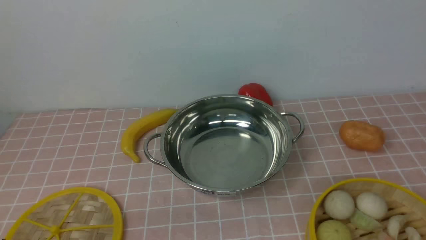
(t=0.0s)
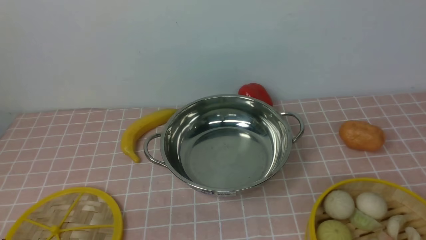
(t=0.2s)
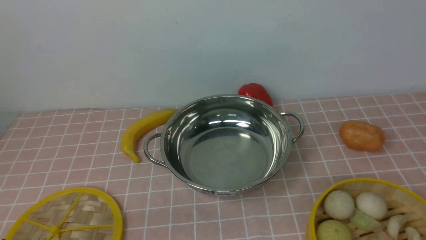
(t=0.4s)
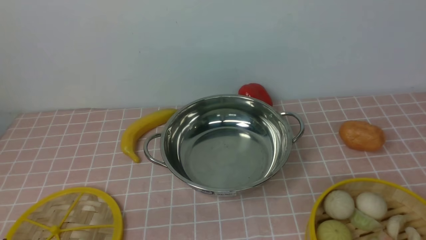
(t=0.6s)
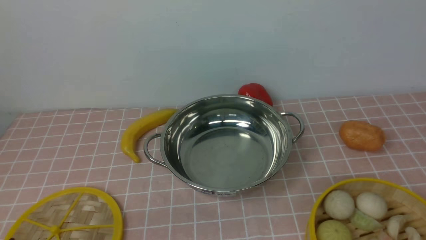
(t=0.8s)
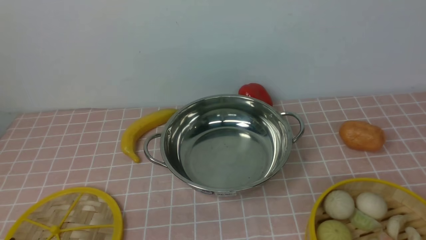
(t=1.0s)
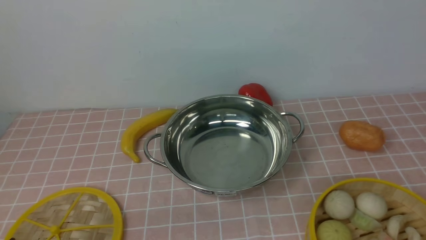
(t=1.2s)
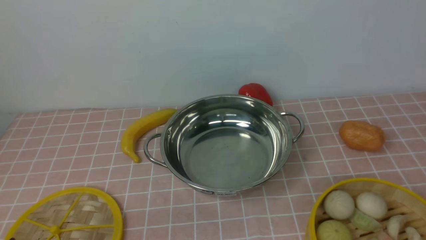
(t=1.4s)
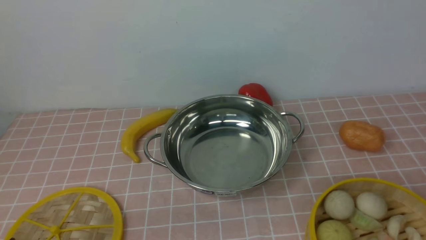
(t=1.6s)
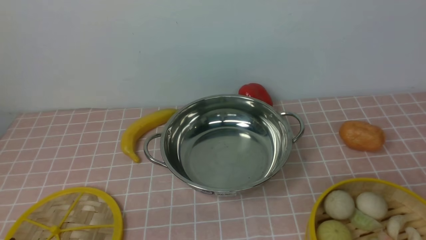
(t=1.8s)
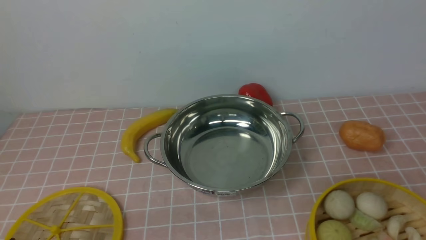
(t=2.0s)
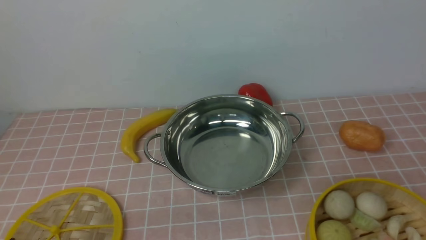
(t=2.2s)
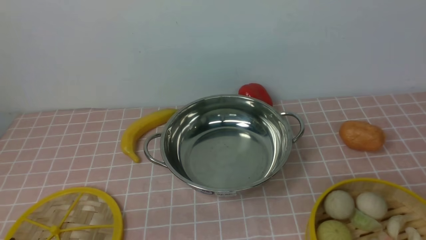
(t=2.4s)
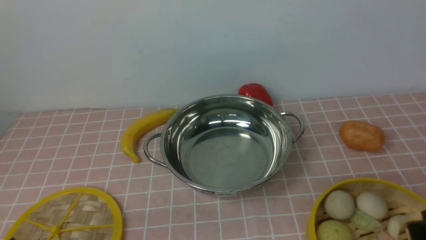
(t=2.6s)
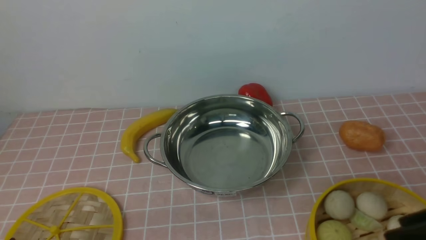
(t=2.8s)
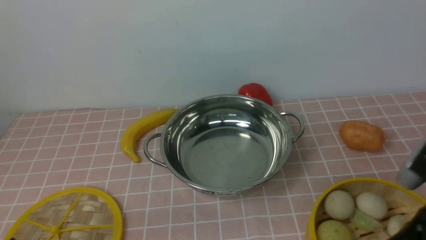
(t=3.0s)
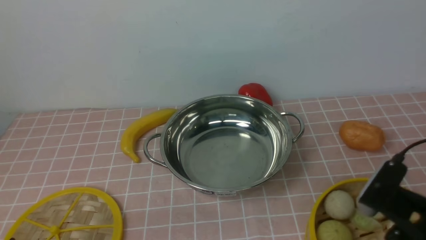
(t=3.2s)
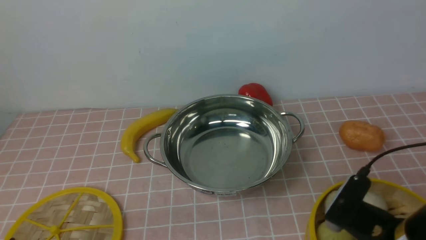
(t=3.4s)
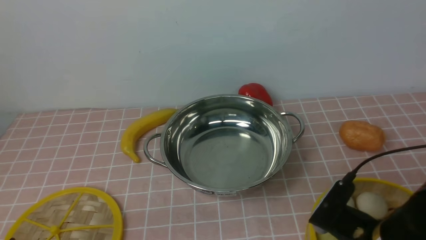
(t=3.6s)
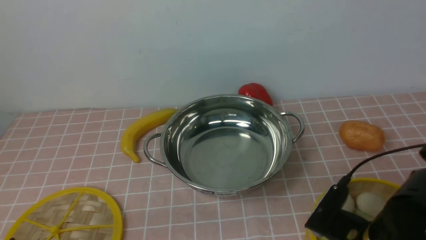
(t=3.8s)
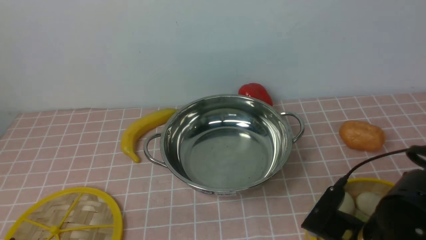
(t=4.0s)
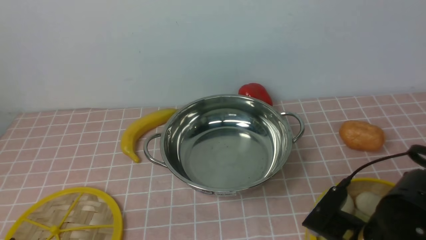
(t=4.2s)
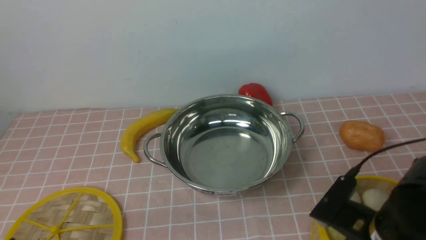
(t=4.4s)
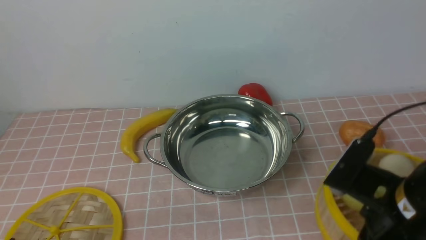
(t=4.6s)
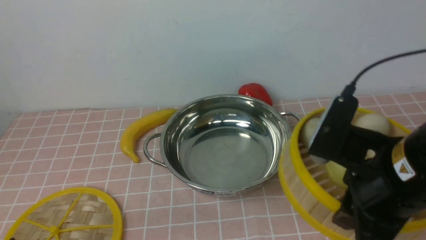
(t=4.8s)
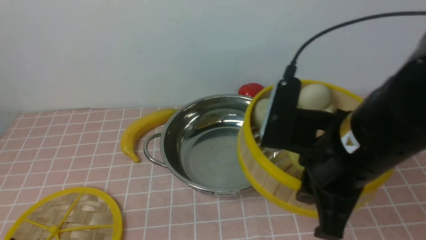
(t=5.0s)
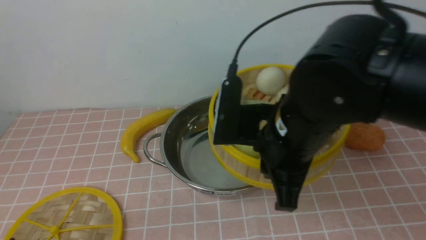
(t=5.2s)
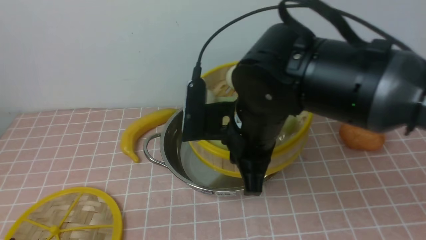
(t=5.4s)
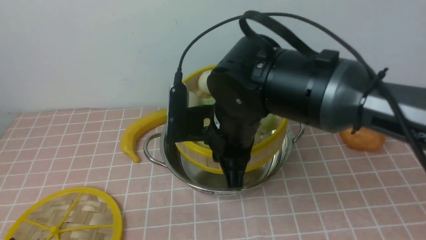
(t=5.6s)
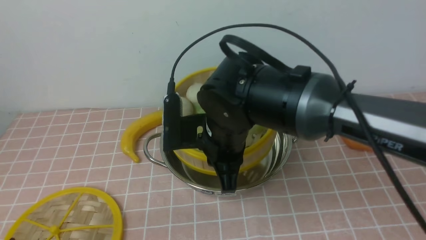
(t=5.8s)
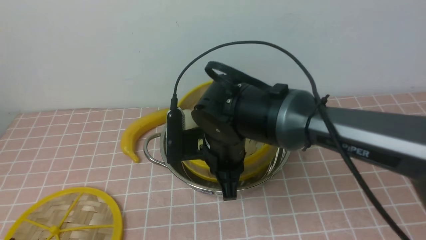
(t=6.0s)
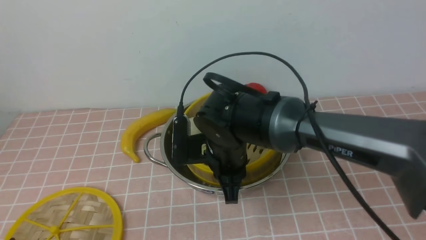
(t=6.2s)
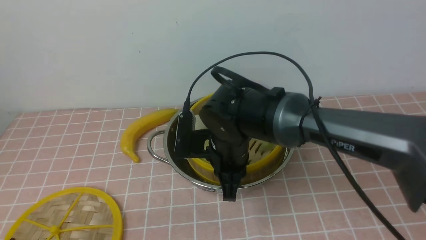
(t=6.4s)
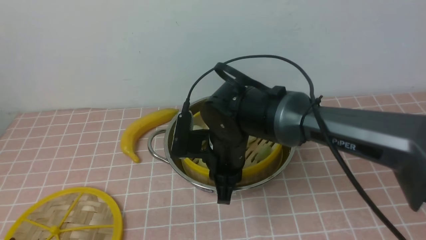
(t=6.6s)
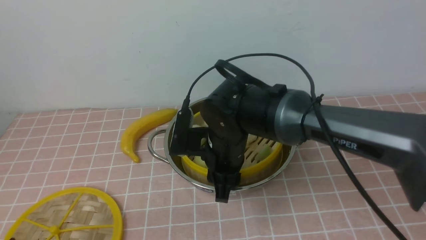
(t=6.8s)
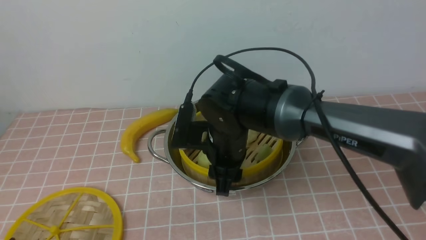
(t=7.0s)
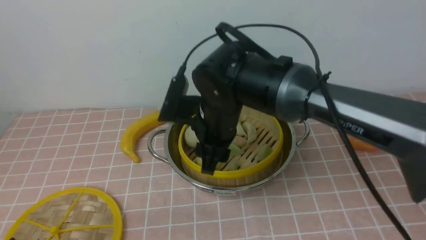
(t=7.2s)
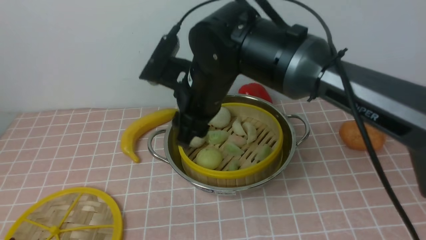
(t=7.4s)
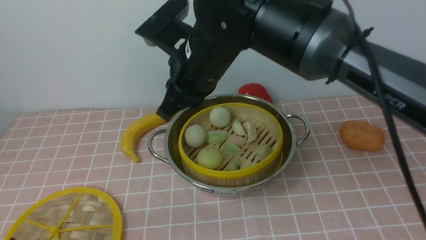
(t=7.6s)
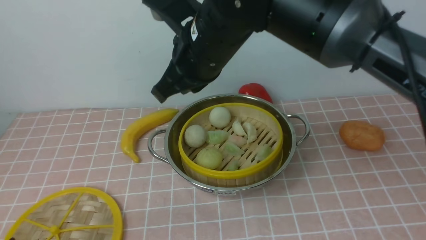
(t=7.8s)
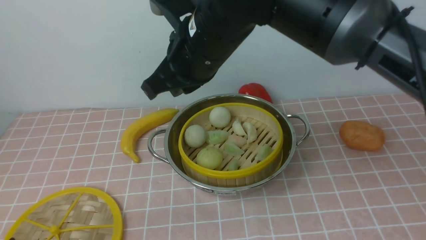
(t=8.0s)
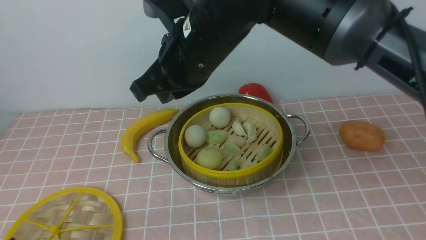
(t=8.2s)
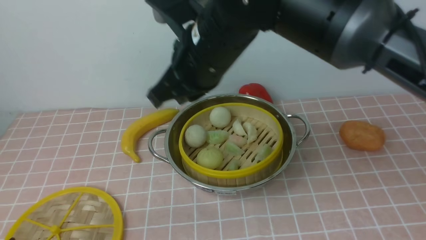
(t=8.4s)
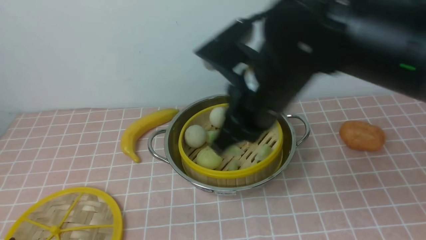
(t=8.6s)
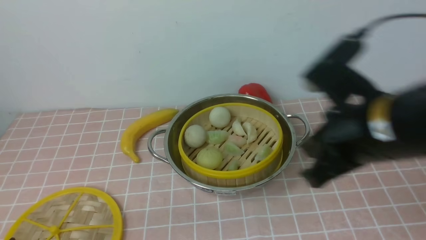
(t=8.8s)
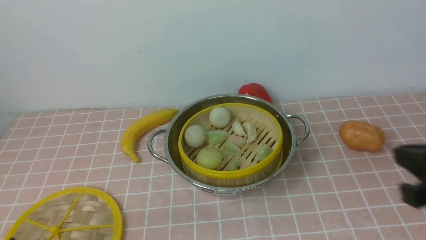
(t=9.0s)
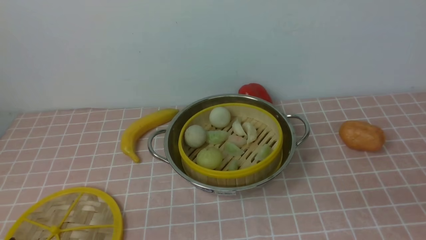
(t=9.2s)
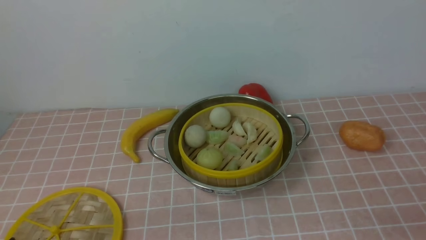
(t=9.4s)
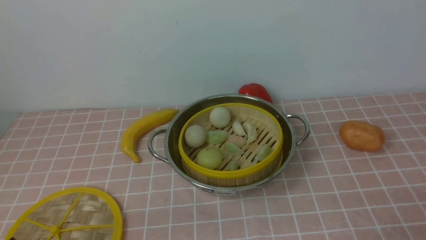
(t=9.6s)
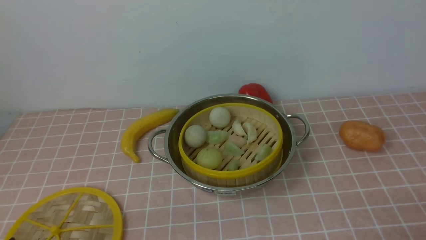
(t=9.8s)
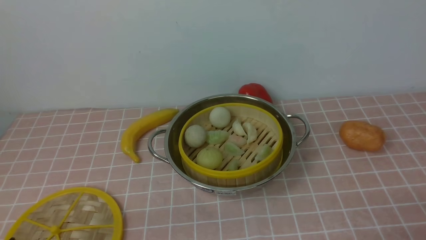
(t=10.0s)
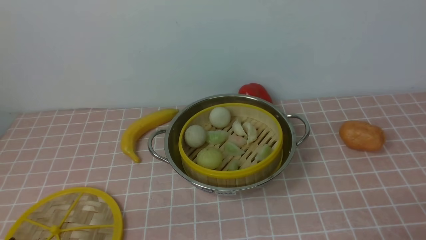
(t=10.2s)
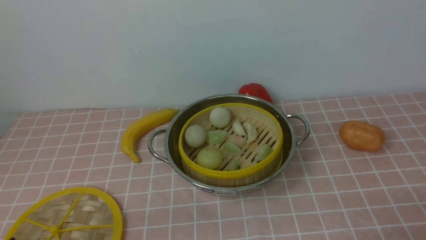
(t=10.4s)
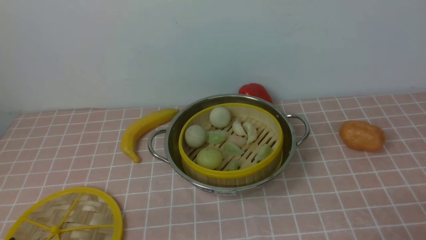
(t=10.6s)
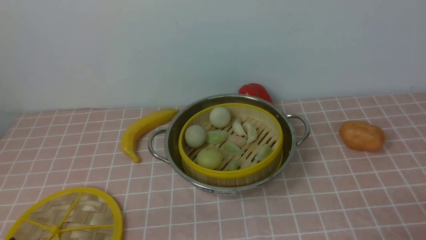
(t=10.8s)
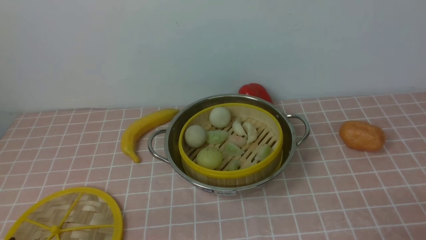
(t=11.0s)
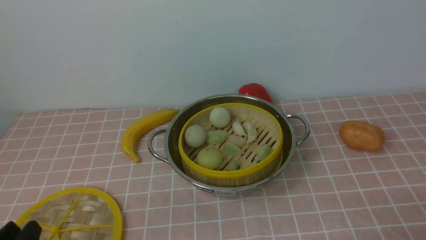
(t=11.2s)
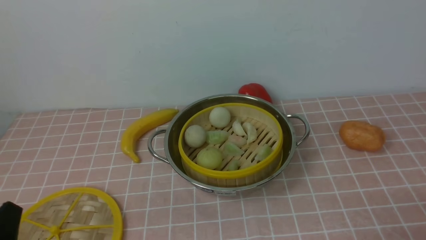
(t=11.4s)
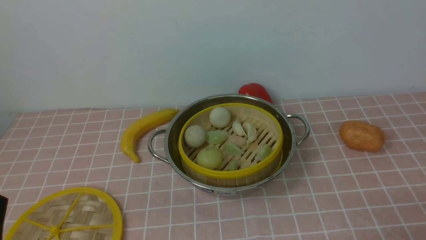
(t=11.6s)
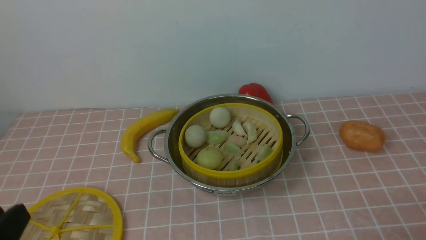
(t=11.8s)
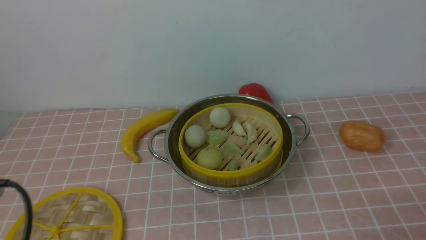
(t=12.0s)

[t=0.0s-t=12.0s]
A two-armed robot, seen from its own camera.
Task of the whole recording: place the steamer in the pot on the pink tablecloth, and put the lid on the steamer.
Step, t=0.0s to t=4.4s: use the right arm to lift the steamer closest to it.
Step, t=4.6s to t=7.0s: use the right arm to put the steamer into the iron steamer pot in the middle.
t=1.6s to t=3.0s: The right gripper travels forward, to the left and upward by some 10 cm.
t=3.0s to t=4.4s: The right gripper shifts roughly 10 cm downward and to the left, and closes its fingers.
t=4.4s to t=6.0s: The right gripper heads to the left and forward, covering about 20 cm.
t=6.0s to t=7.6s: The right gripper travels upward by some 10 cm, and opens, then closes once more.
t=7.6s to t=9.0s: The right gripper goes some 30 cm to the right and backward, and closes its fingers.
t=9.0s to t=10.4s: The right gripper shifts approximately 20 cm downward, backward and to the right, and opens.
t=10.4s to t=12.0s: The left gripper moves upward, roughly 10 cm.

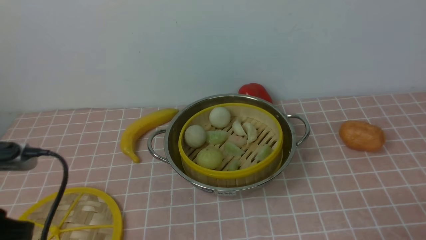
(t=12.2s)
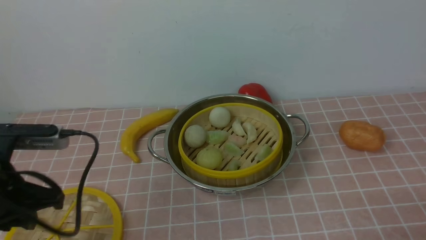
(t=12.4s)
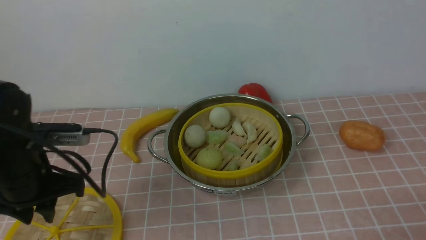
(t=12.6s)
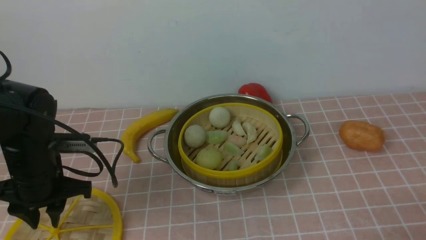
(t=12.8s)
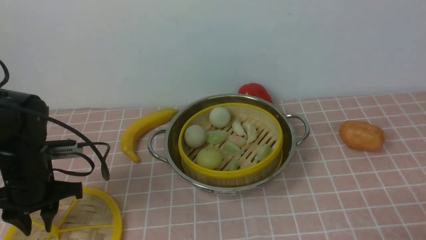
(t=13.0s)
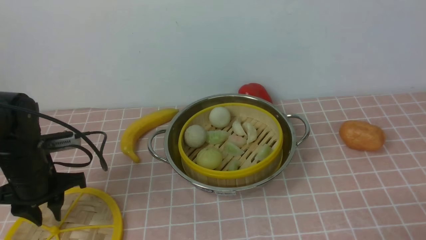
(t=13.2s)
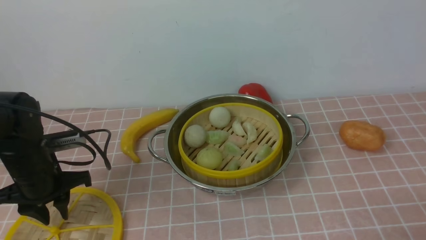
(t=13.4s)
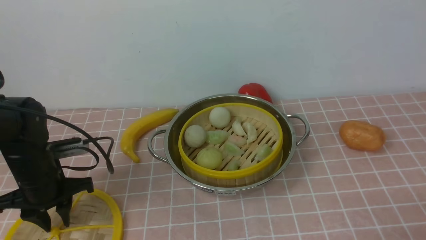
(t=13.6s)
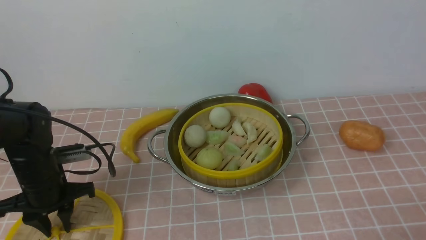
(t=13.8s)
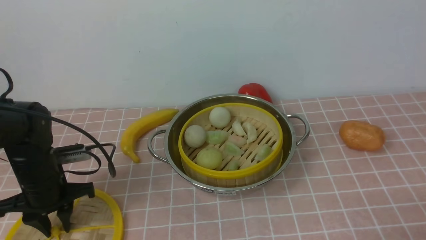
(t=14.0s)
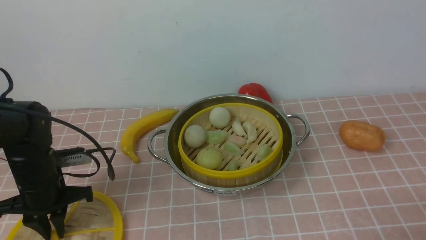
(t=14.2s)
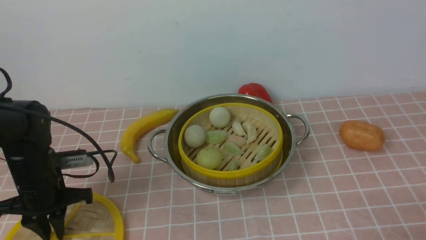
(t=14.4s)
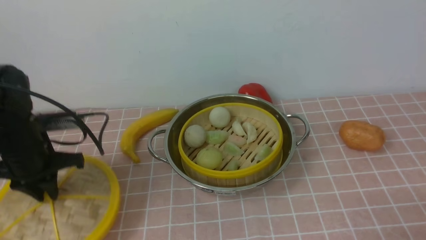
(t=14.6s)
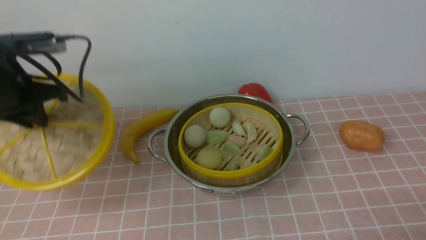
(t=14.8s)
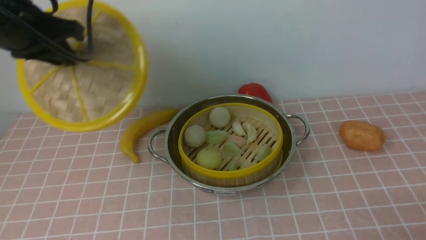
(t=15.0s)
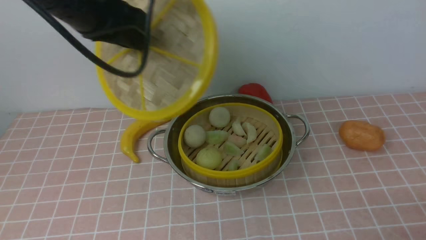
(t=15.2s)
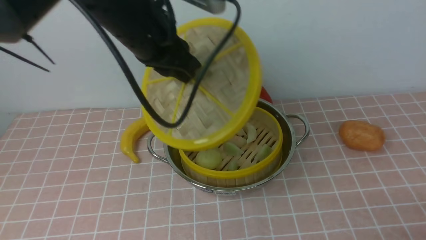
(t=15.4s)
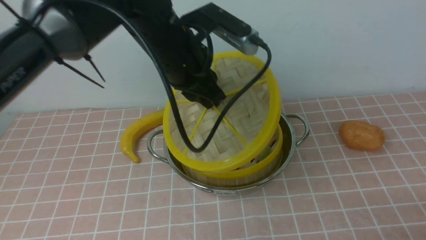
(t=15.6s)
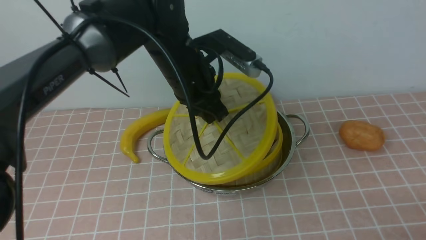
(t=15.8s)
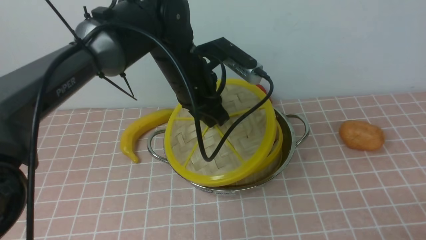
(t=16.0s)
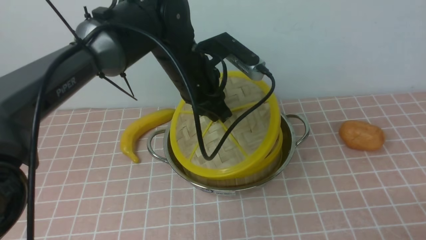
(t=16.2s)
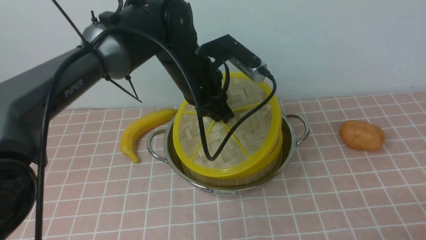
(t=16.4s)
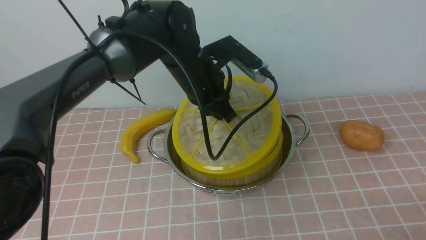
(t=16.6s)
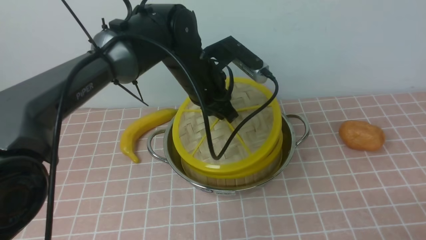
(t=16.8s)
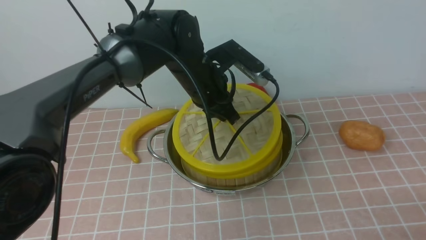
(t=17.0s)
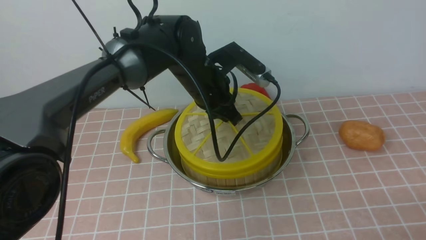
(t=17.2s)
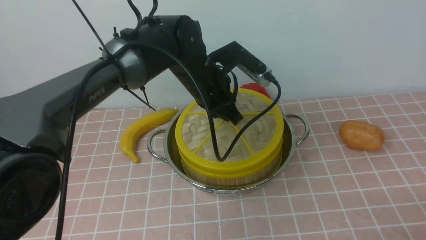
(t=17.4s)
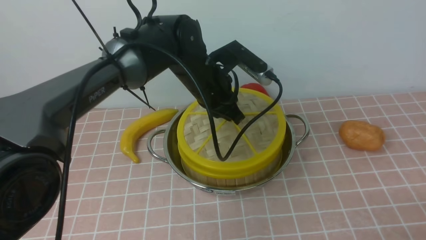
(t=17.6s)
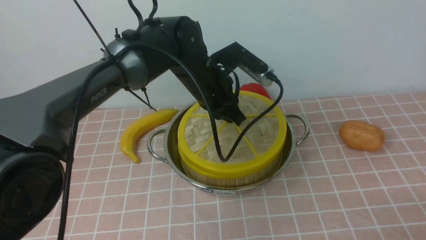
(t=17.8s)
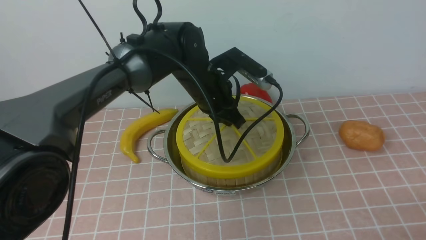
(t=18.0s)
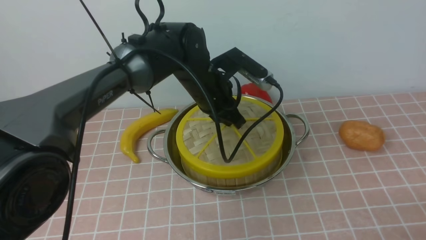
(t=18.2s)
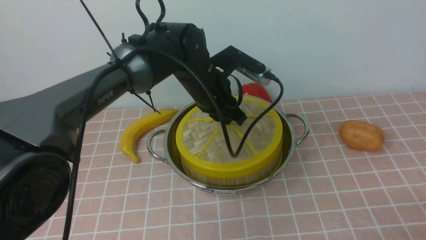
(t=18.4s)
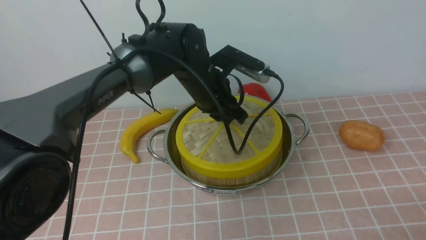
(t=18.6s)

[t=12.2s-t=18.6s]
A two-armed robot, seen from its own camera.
Task of the whole recording: place the steamer in the pot on the pink tablecloth, and put the lid on the steamer.
Step, t=12.2s to t=14.4s: use the left arm to lift the lid of the steamer.
t=12.2s to t=13.8s: The left gripper heads forward and downward, covering about 20 cm.
t=13.8s to t=15.4s: The left gripper is displaced upward and to the right by approximately 25 cm, and closes.
t=15.4s to t=17.0s: The left gripper moves downward, to the right and forward, some 15 cm.
t=17.0s to t=18.6s: There are only small adjustments of the grippers.